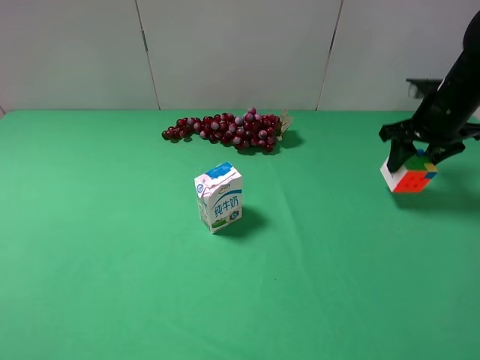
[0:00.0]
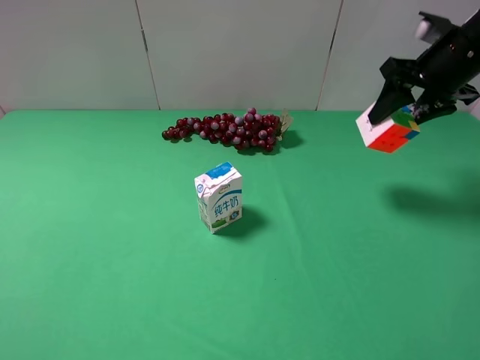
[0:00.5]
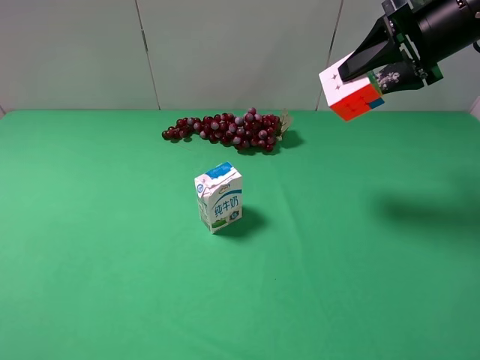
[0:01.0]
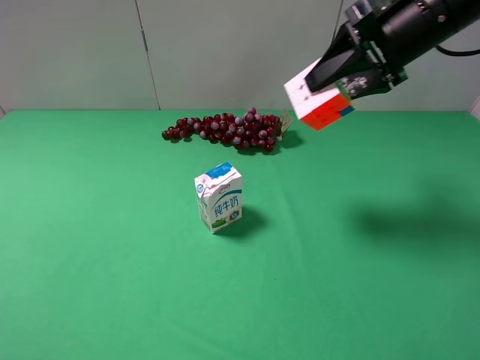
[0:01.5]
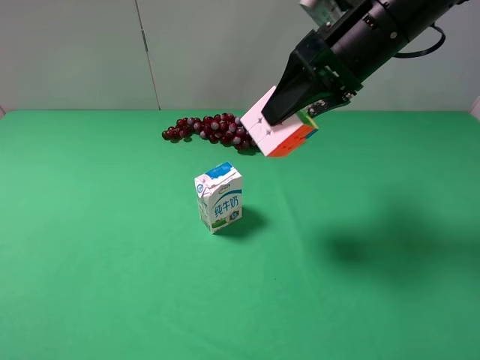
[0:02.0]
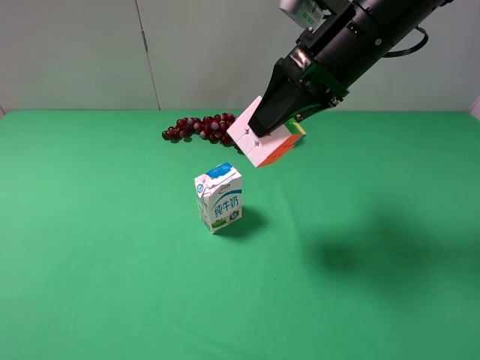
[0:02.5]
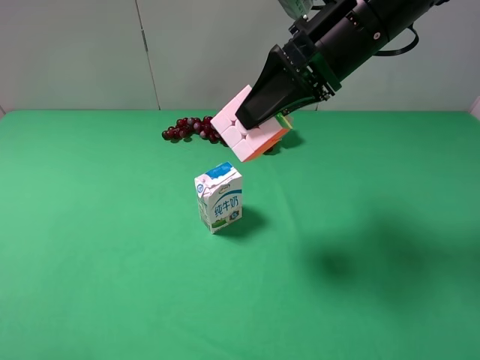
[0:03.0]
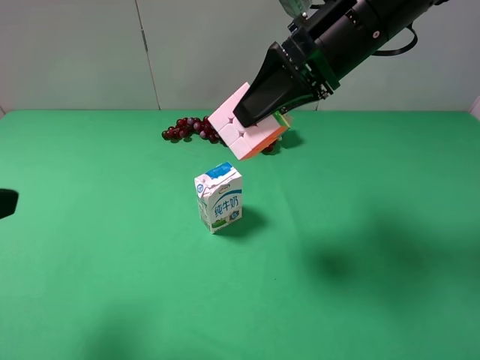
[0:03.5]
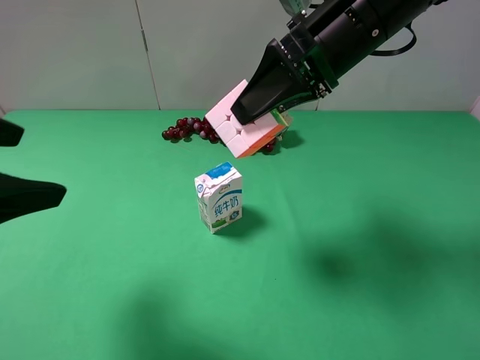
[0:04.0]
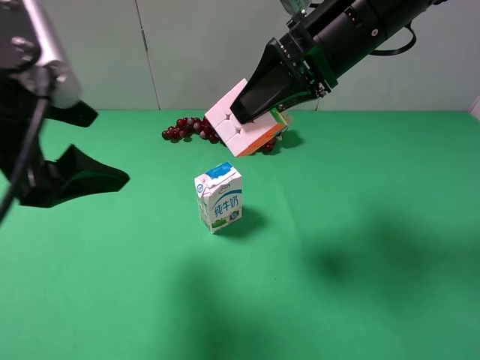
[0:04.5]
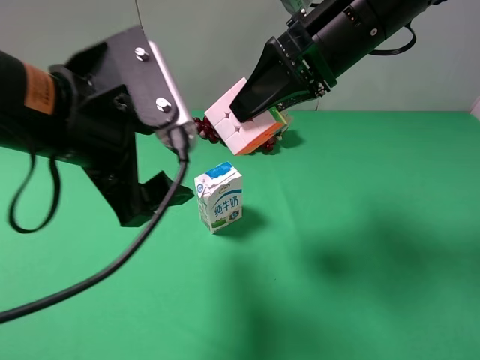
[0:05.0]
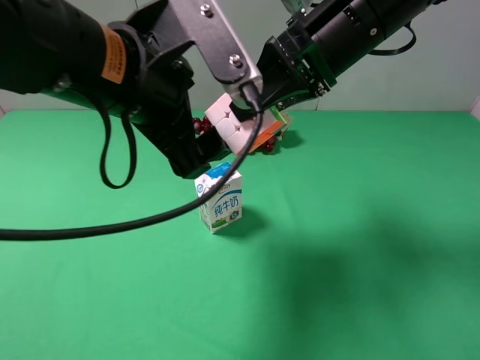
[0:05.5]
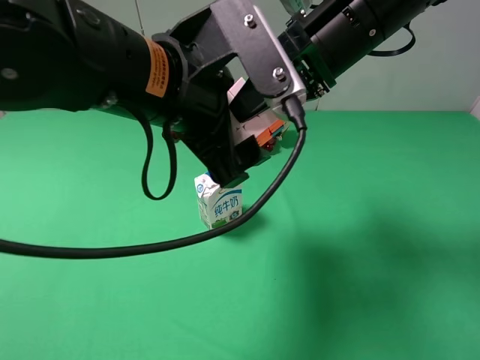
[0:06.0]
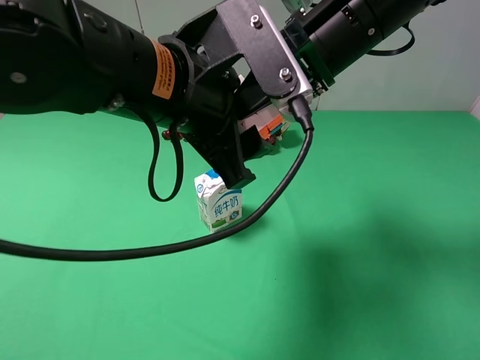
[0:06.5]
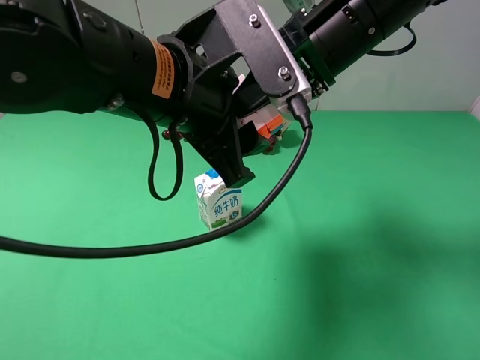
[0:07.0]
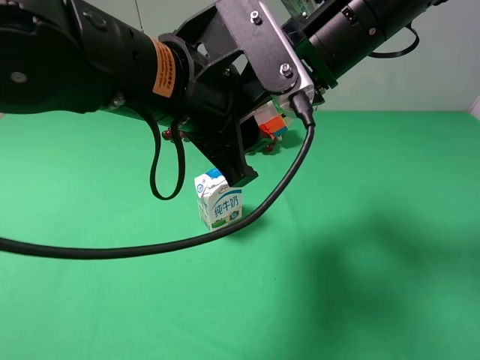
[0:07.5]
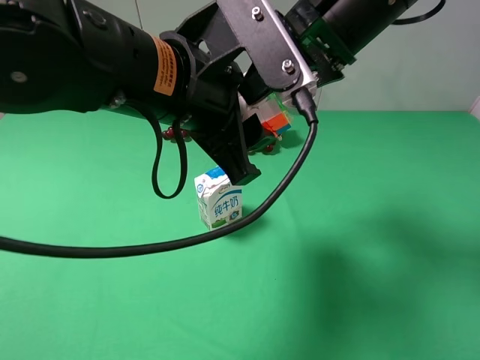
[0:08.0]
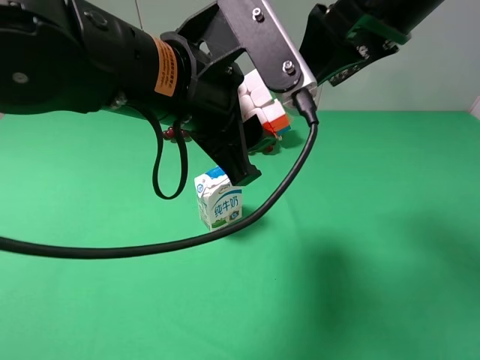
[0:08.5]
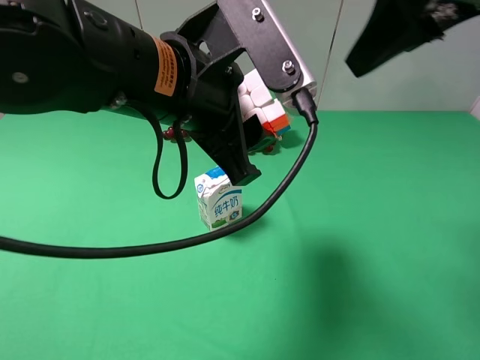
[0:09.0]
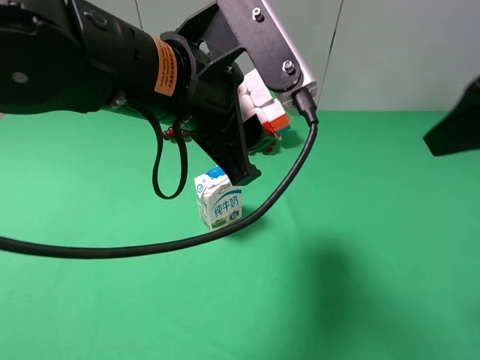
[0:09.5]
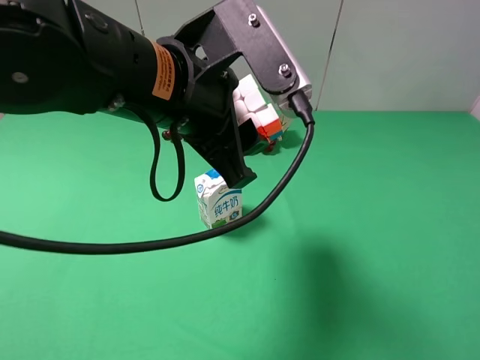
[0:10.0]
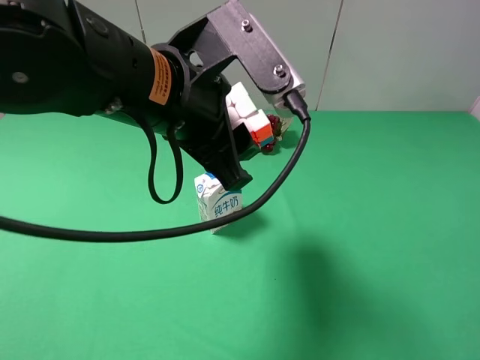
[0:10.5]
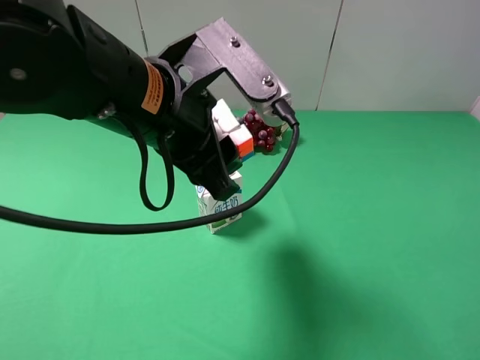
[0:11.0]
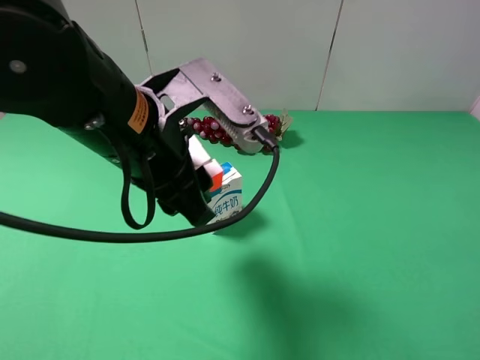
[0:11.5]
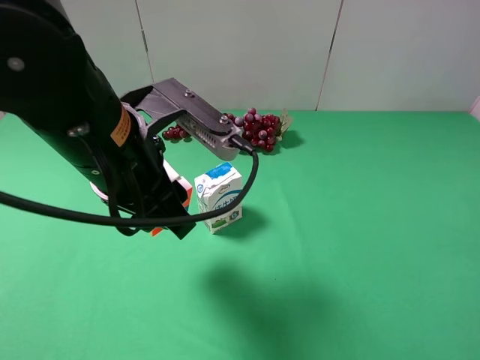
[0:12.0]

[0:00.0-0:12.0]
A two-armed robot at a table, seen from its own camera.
Task of the whole recording: use the right gripper to pick up the item and transfer it from the right gripper to the left gripper.
Step, 0:00.0 to 0:08.0: Pass the Rubik's Cube to the left gripper.
0:00.0 to 0:02.0: The right gripper is displaced to the left, upward and backward by approximately 20 cm.
0:02.0 to 0:04.0: The left gripper is displaced forward by roughly 15 cm.
0:04.0 to 0:06.0: The left gripper heads to the right, covering some 20 cm.
0:06.0 to 0:08.0: The right gripper opens its fingers, while the left gripper closes its fingers.
0:08.0 to 0:10.0: The right gripper is displaced backward and to the right by roughly 30 cm.
0:10.0 to 0:12.0: The left gripper ends up approximately 5 cm from where it was. Meanwhile the right gripper changes place by about 5 cm.

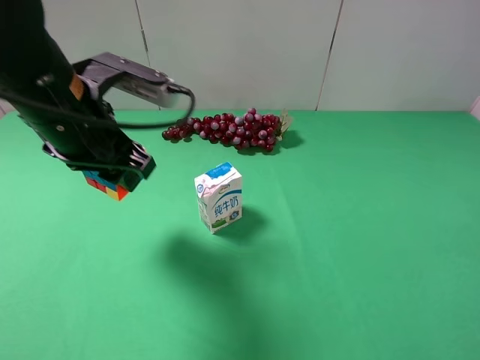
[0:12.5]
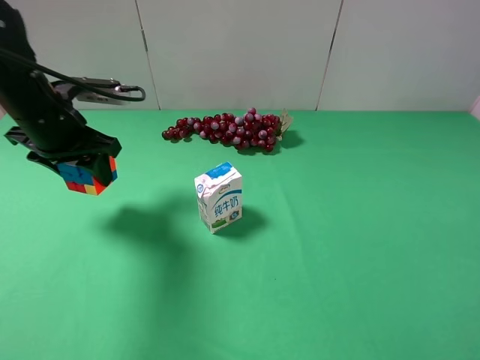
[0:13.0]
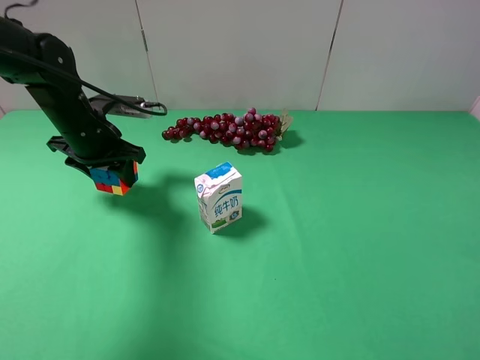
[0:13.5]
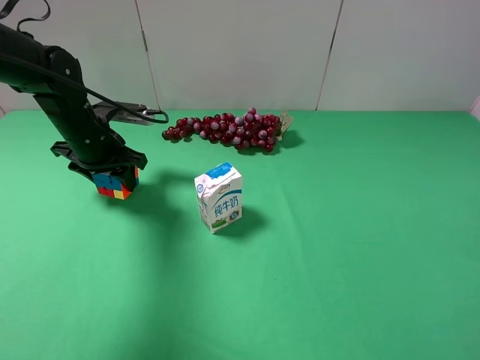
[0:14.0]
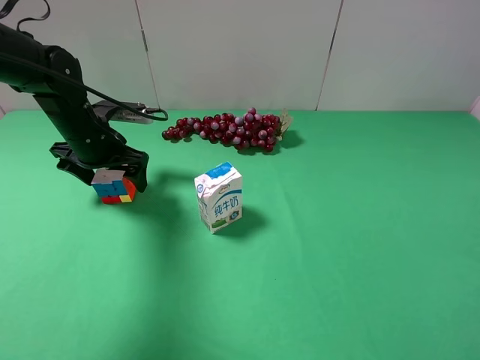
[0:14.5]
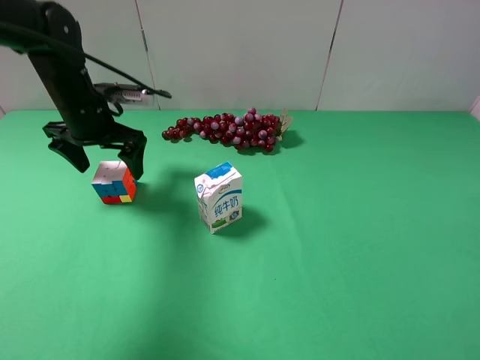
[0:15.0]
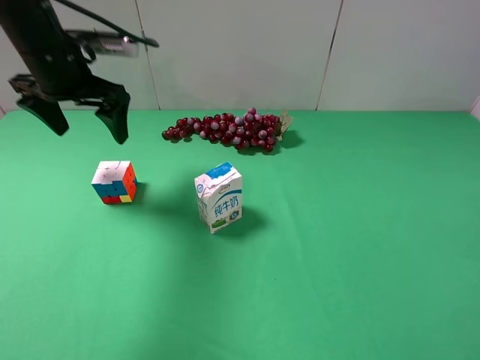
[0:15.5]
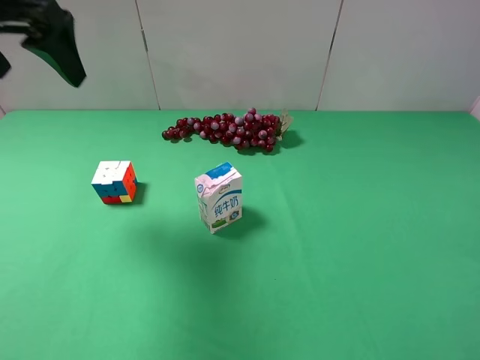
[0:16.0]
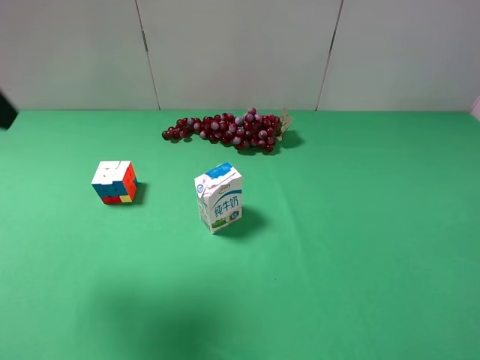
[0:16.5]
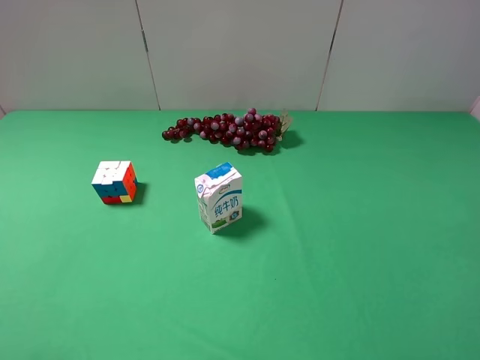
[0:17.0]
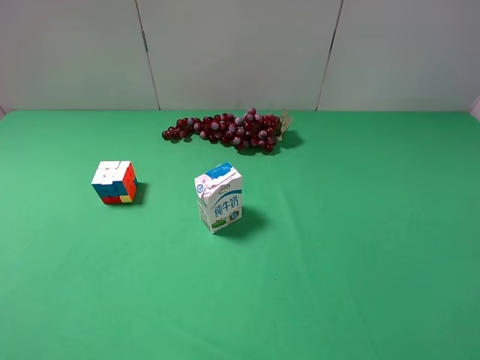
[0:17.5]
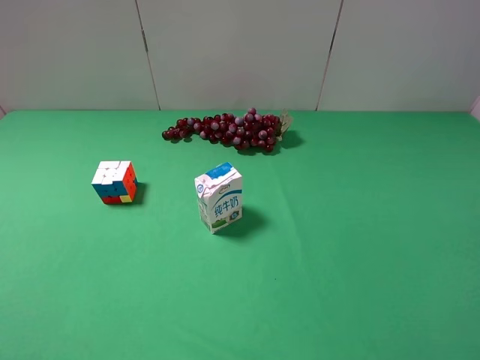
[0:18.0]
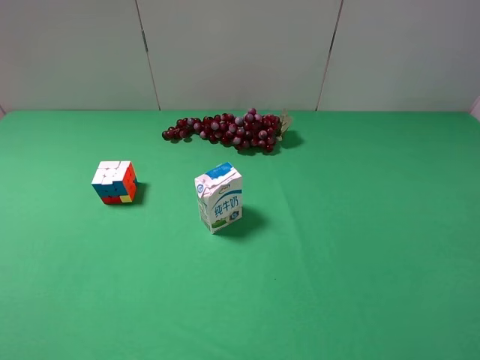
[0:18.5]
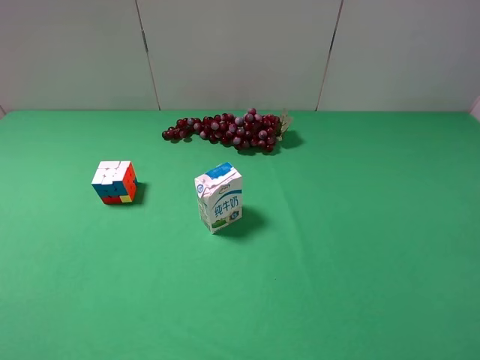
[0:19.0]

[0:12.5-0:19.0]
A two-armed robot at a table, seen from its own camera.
Task of the whole recording: use the right gripper to pick up the item and transfer it from the right gripper to the left gripper.
Step, 0:12.5 to 0:14.5: The left gripper places Rubik's Cube on the left side of the table.
0:12.5 to 0:14.5: The left gripper goes about 20 cm downward, forward and to the left, and opens up.
0:14.5 to 0:17.0: The left gripper heads backward and upward, covering about 35 cm.

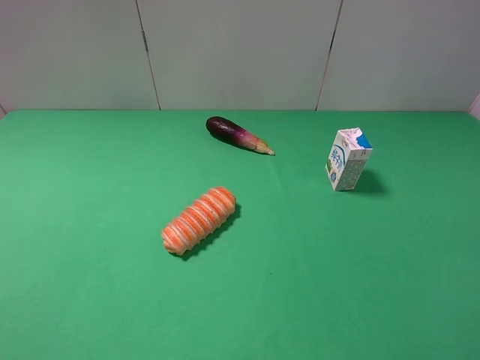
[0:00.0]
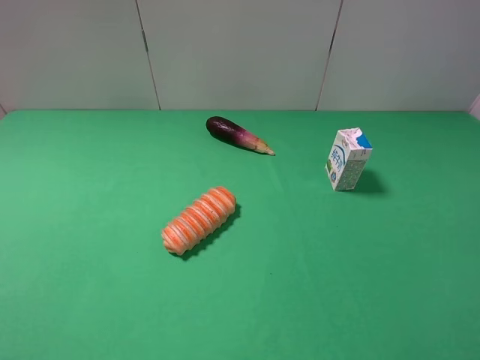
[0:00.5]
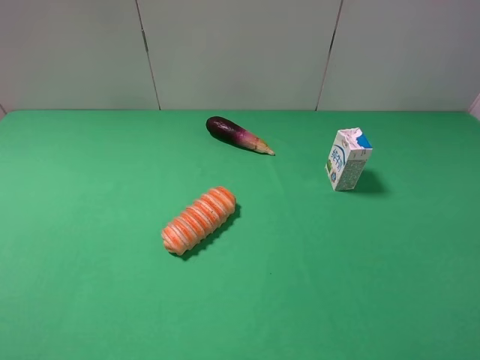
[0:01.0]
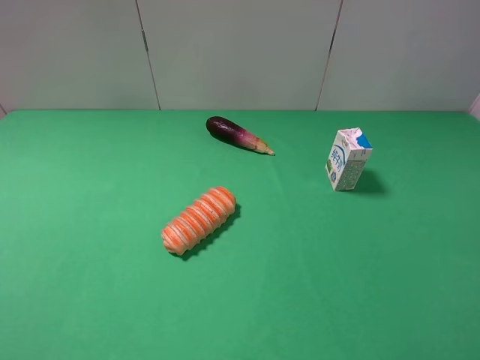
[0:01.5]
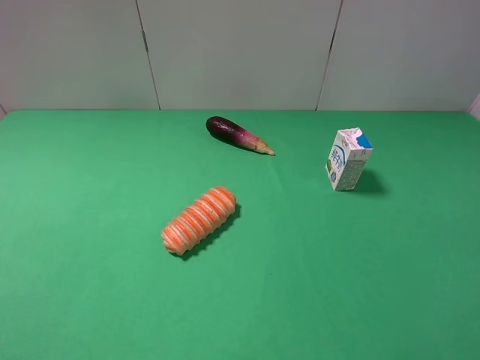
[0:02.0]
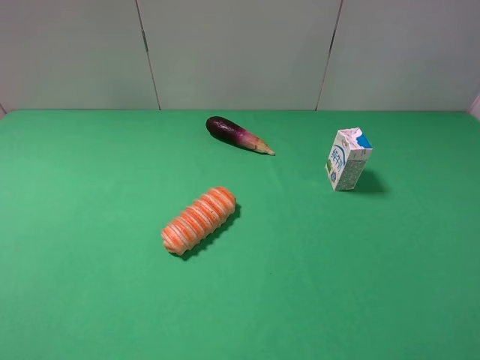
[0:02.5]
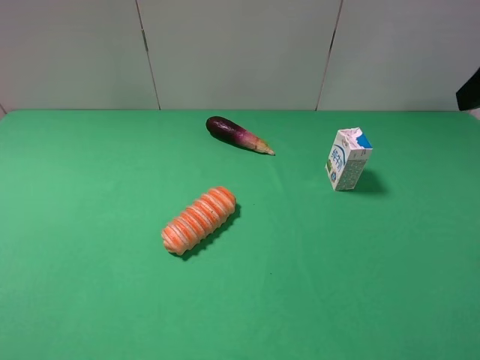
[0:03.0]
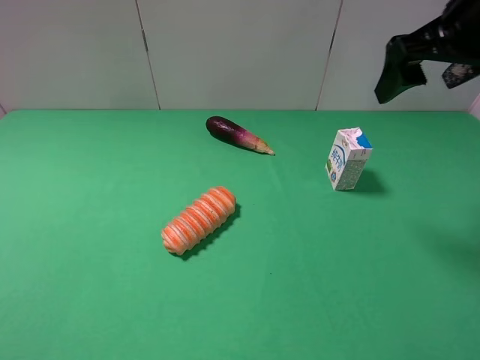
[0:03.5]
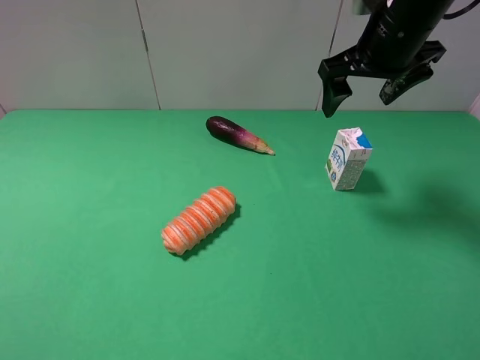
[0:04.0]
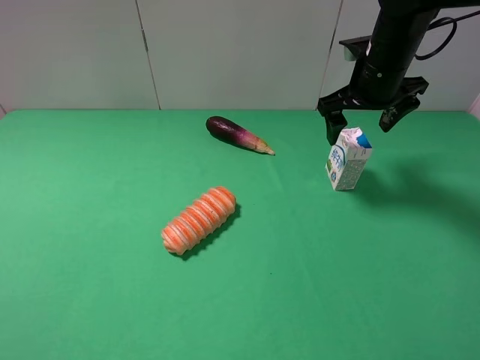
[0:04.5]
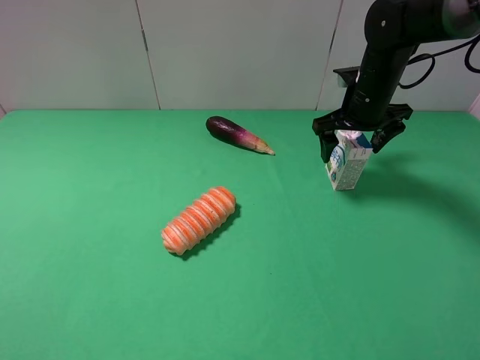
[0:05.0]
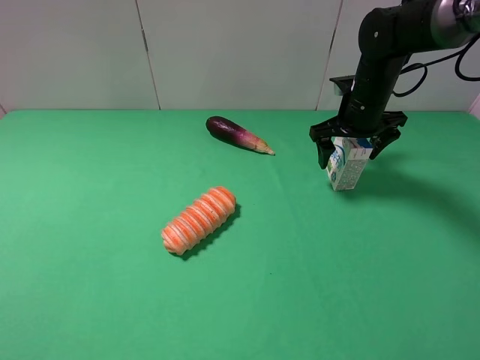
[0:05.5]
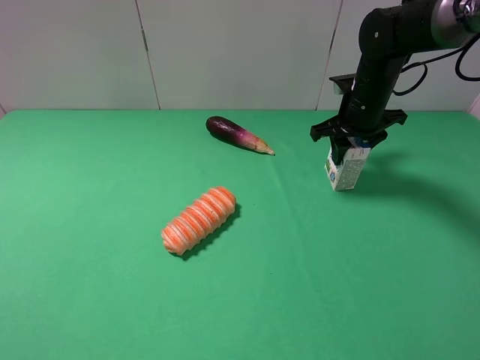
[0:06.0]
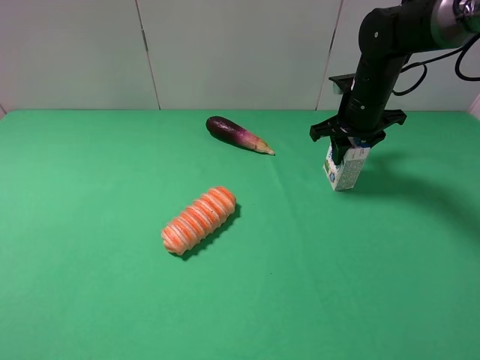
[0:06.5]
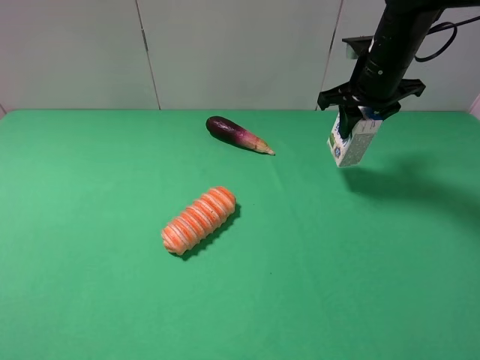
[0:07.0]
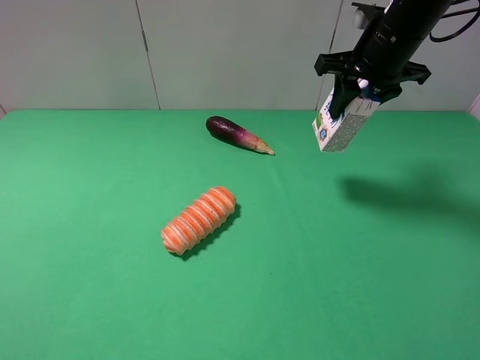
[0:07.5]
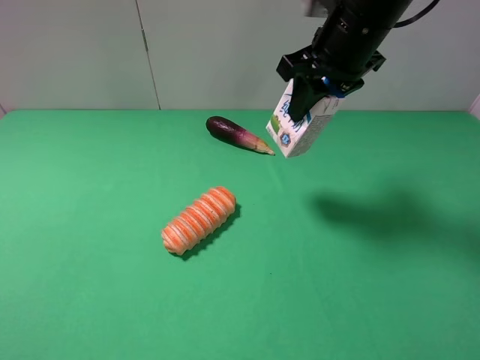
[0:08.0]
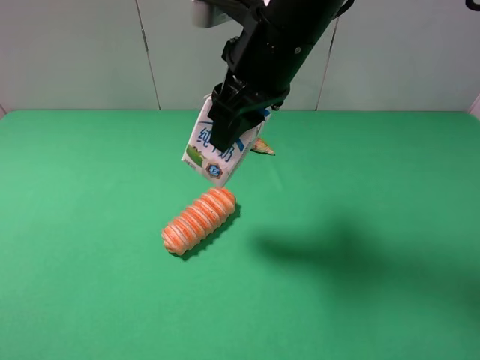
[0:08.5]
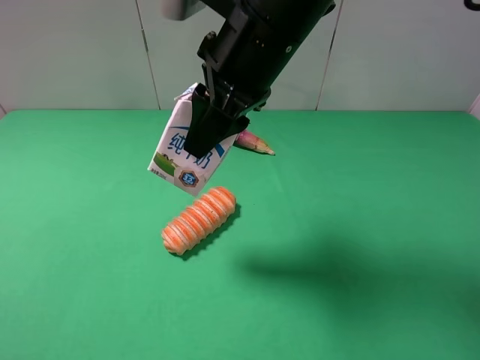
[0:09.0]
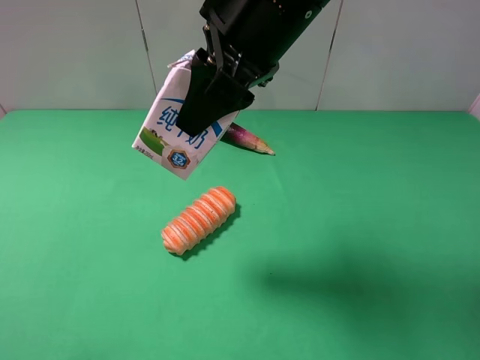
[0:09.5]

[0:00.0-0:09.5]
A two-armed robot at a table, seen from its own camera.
Task of the whole recording: use the right gripper to pick up the item and transfer it from the right gripper to the left gripper.
0:00.0 to 0:02.0: Neither gripper changes place.
0:02.0 to 0:04.0: The right gripper is displaced forward by roughly 35 cm.
0:04.0 to 0:05.5: The right gripper is displaced downward and forward by about 15 cm.
0:05.5 to 0:07.5: The right gripper goes roughly 10 cm upward, and closes its fingers.
0:07.5 to 0:09.5: The right gripper moves to the left, backward and upward, some 20 cm.
